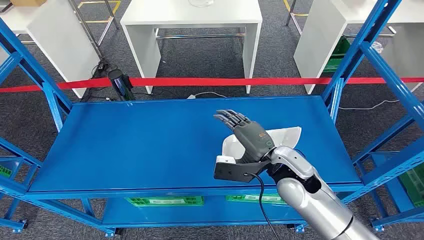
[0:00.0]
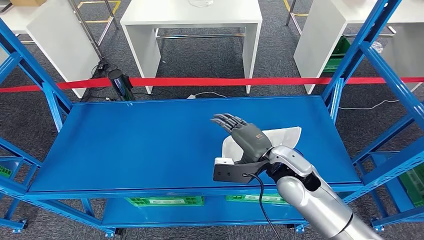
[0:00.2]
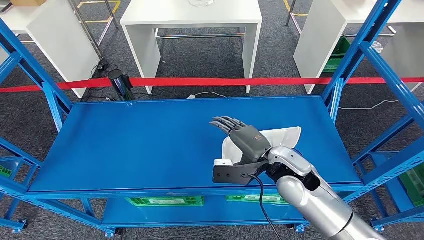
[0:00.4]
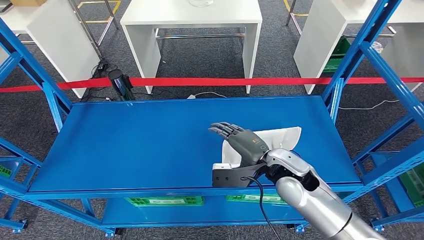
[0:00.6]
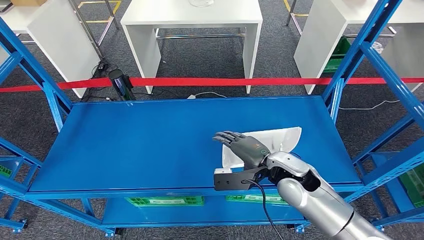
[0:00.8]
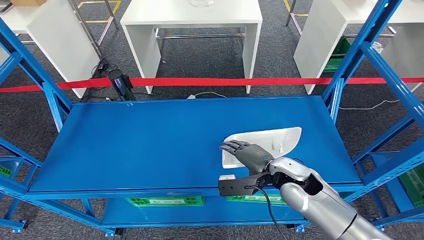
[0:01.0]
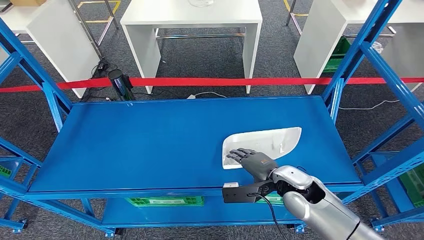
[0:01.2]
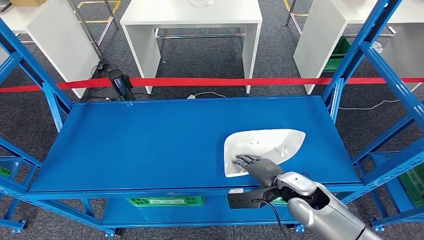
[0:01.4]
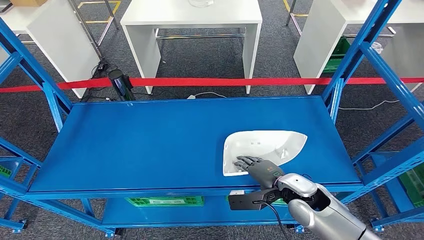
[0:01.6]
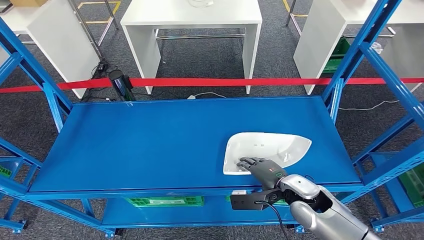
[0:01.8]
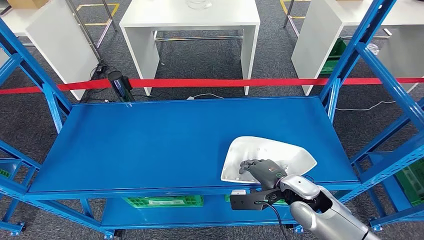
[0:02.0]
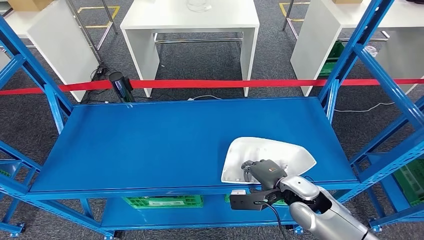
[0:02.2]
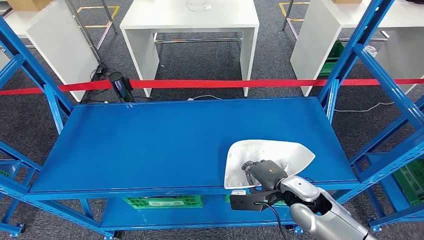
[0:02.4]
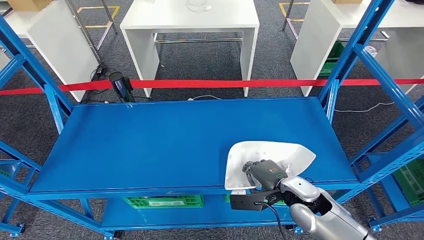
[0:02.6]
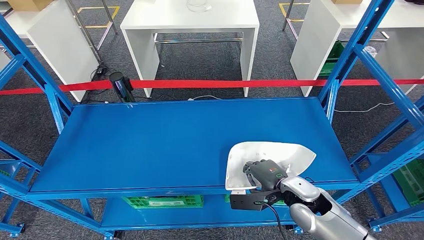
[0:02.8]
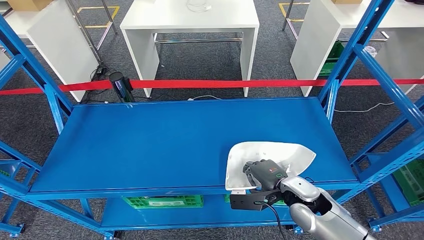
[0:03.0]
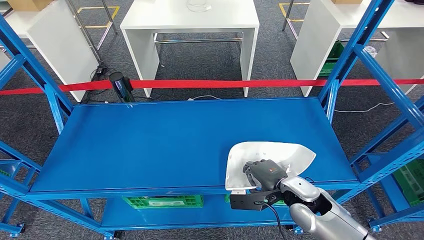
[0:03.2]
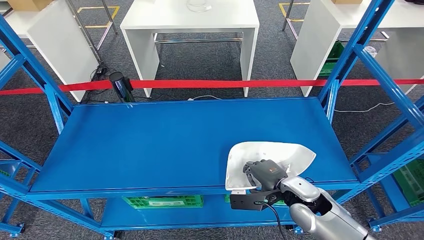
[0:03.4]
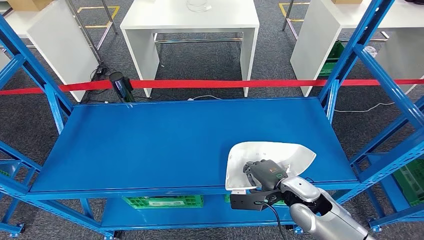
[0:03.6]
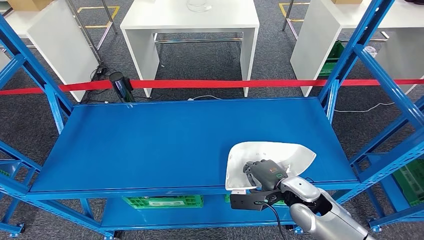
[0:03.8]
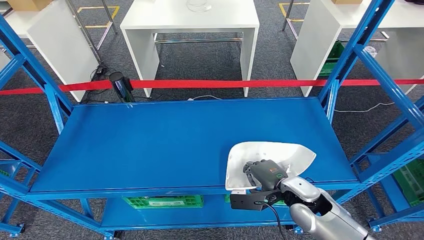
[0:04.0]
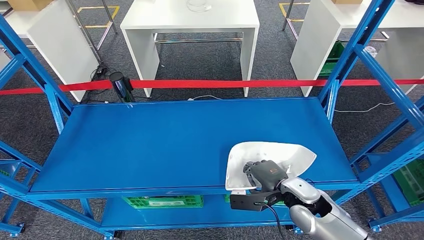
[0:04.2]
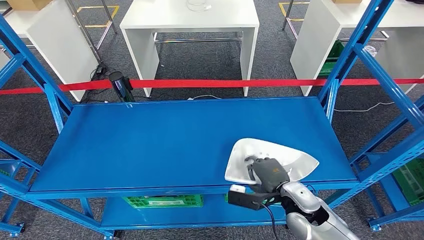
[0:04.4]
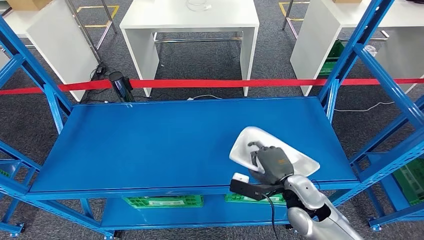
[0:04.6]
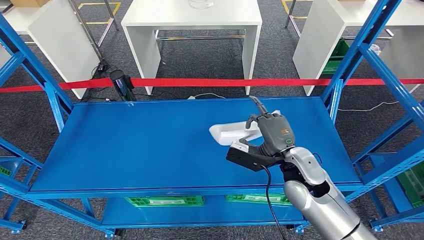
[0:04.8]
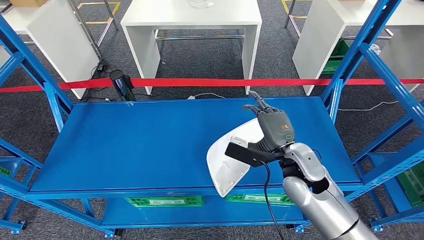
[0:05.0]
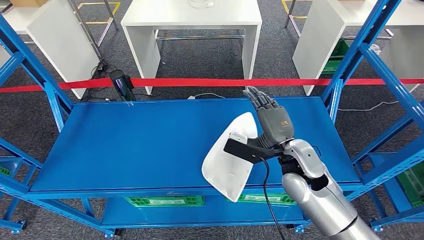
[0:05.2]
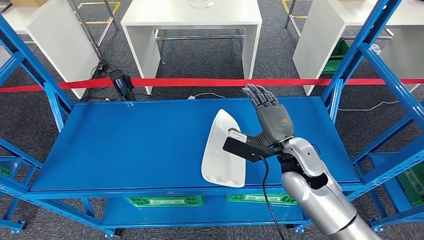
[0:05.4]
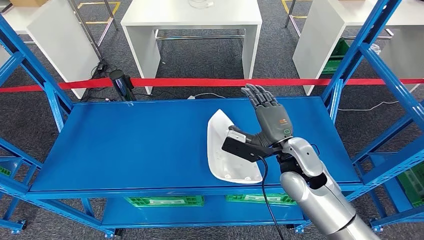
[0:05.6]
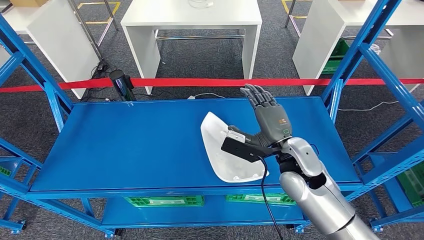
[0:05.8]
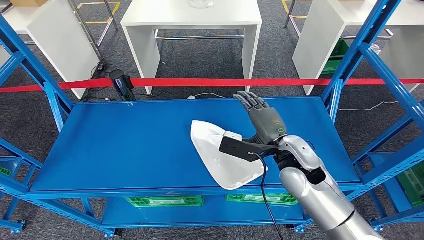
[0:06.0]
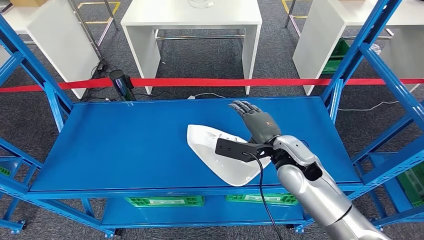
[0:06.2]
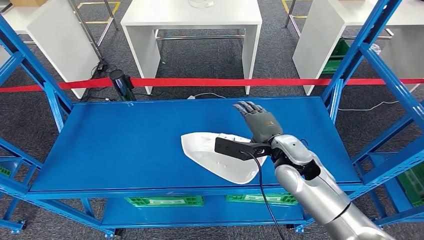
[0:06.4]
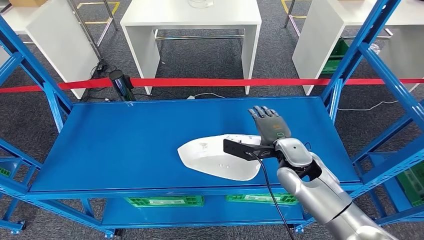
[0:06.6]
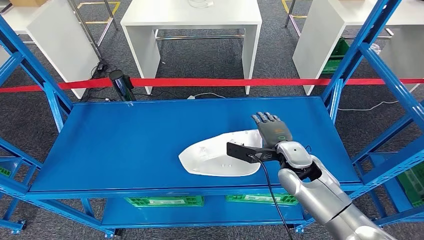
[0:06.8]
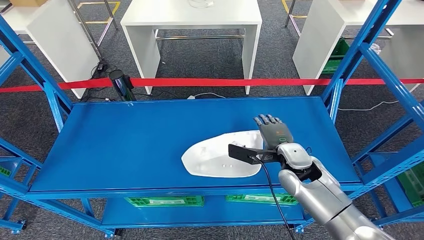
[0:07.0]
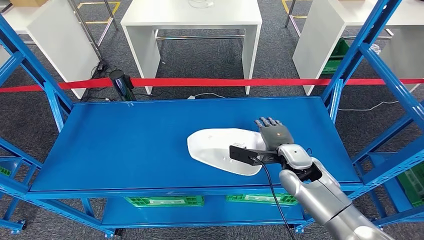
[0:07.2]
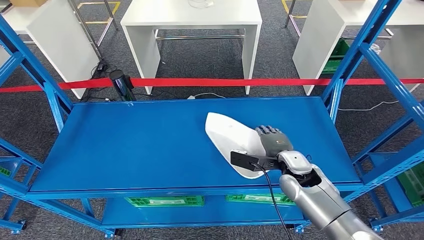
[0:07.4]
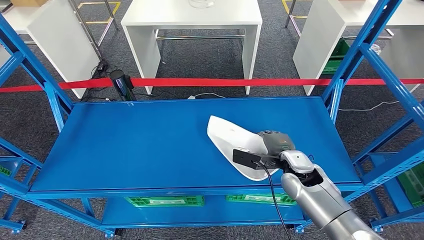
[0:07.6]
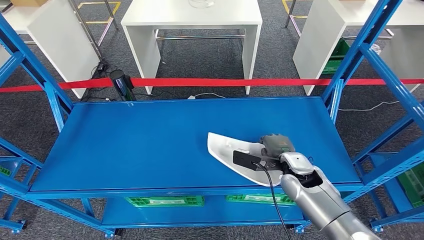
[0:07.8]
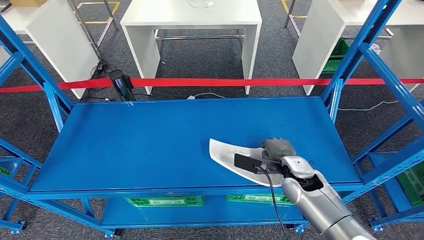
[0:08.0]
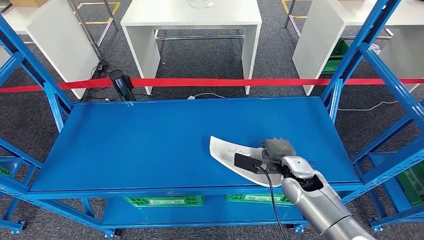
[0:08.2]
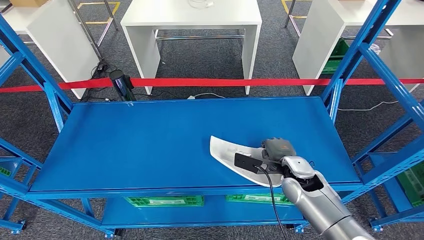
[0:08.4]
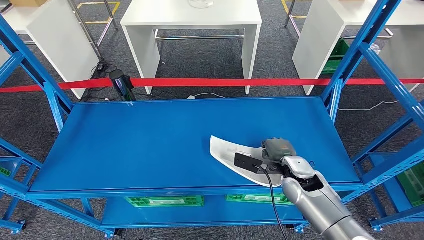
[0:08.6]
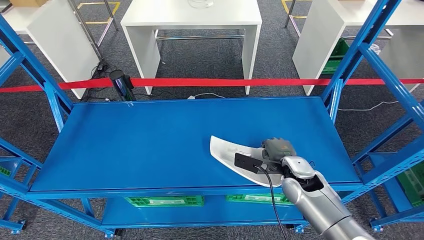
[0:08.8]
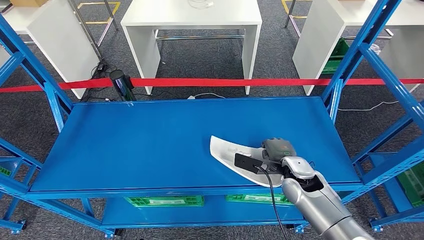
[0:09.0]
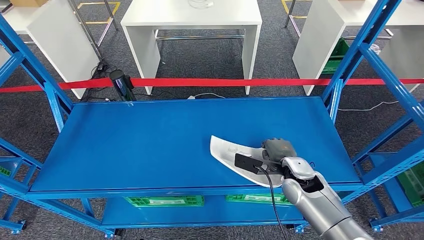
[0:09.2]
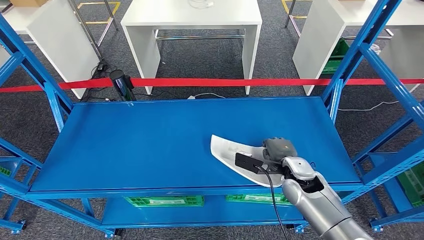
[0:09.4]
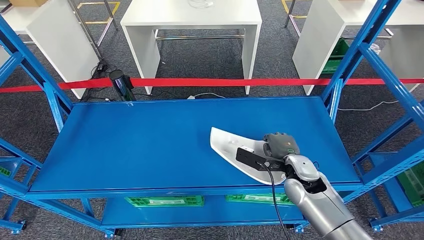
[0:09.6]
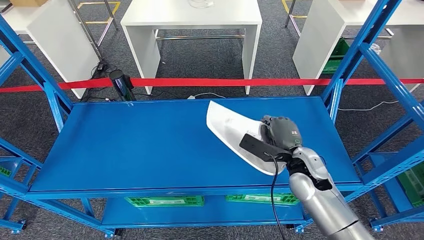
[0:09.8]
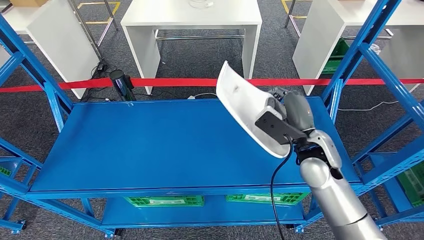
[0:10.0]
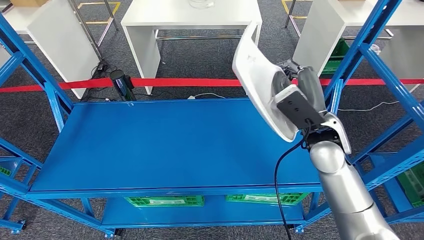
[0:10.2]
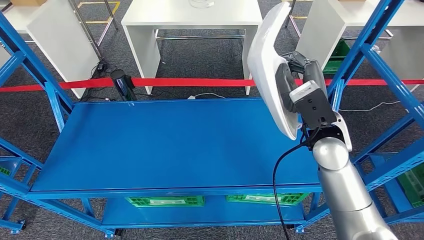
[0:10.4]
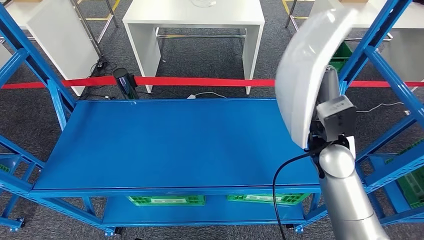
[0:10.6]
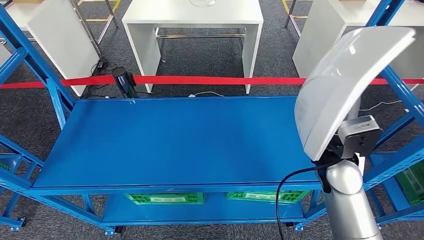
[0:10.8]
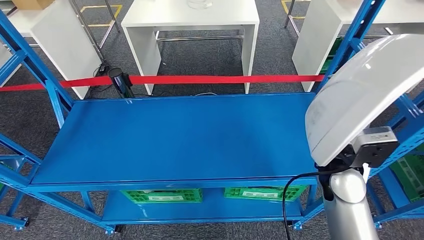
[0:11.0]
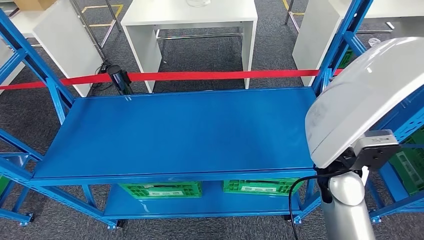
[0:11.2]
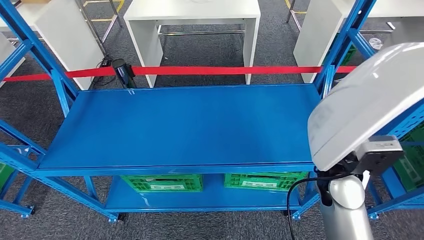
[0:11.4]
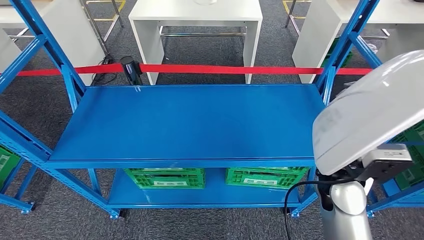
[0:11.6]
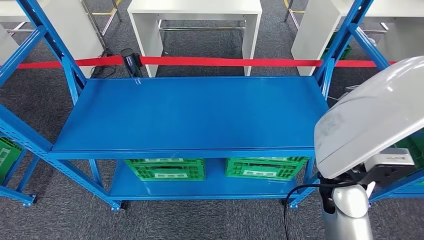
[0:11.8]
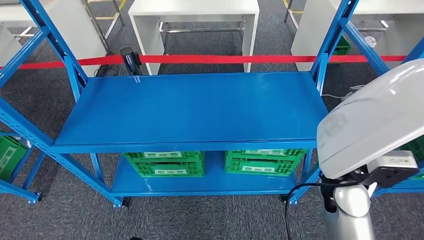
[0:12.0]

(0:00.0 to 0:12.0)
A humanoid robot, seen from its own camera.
Step, 0:00.0 - 0:11.6: Pick up the small parts from the shelf.
0:03.0 - 0:04.4: There are only small adjustments of the hands.
0:06.0 - 0:07.6: The right hand travels downward by about 10 cm.
0:07.6 - 0:09.0: There are only small adjustments of the hands.
0:09.0 - 0:10.4: The right hand moves upward, roughly 15 cm.

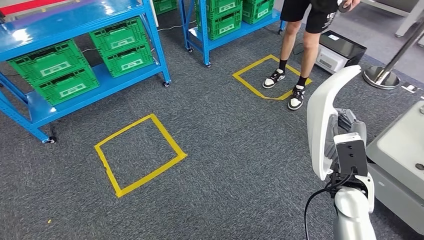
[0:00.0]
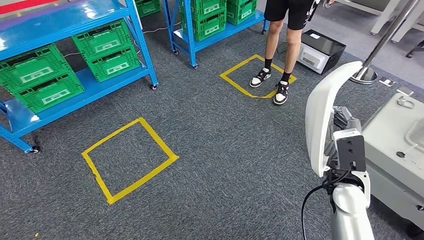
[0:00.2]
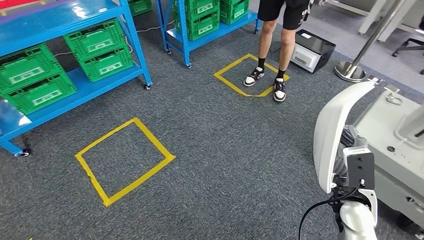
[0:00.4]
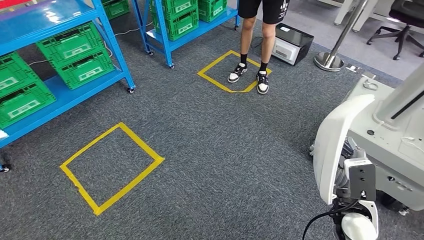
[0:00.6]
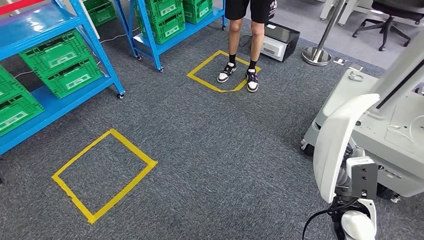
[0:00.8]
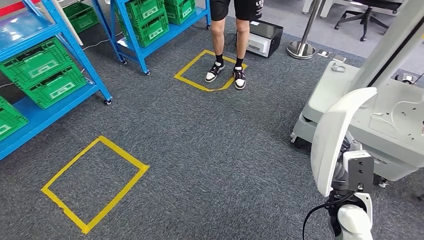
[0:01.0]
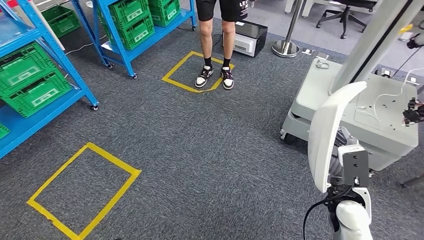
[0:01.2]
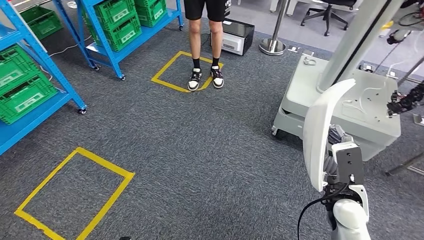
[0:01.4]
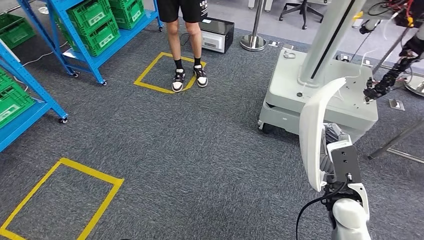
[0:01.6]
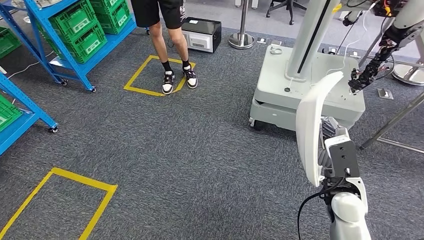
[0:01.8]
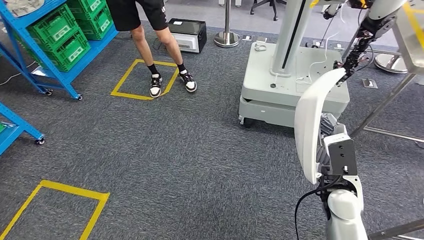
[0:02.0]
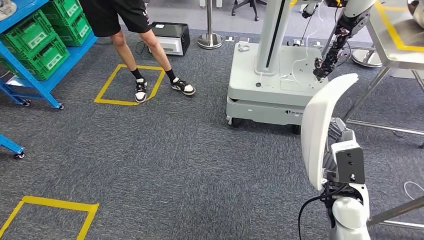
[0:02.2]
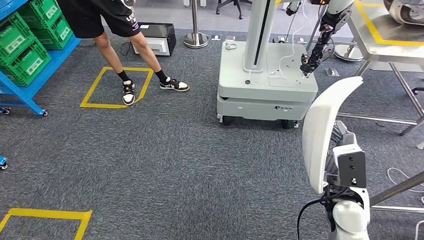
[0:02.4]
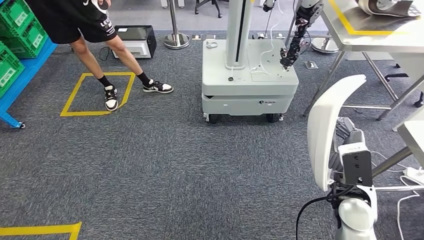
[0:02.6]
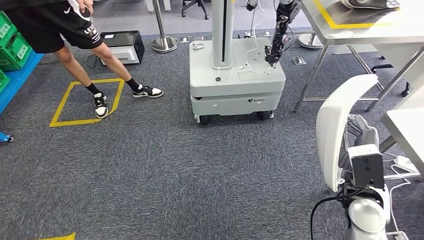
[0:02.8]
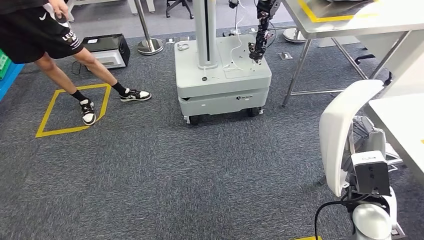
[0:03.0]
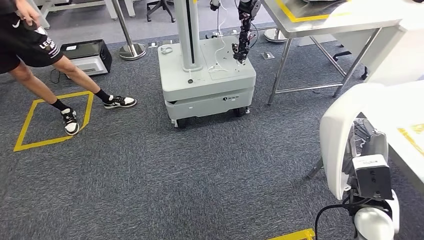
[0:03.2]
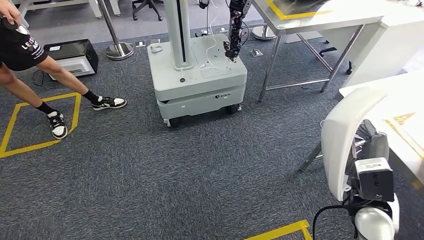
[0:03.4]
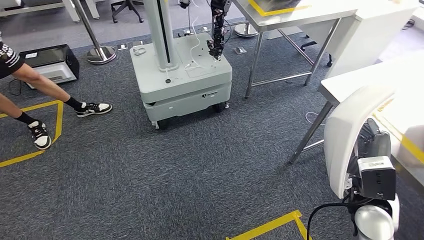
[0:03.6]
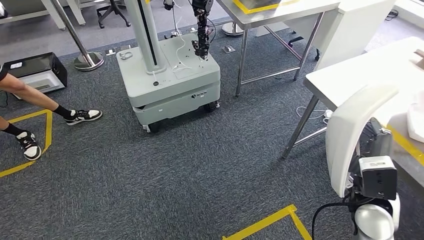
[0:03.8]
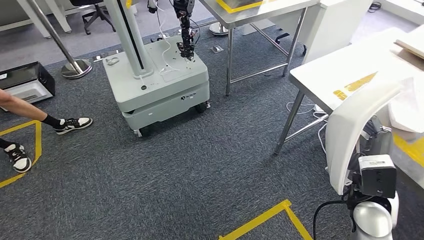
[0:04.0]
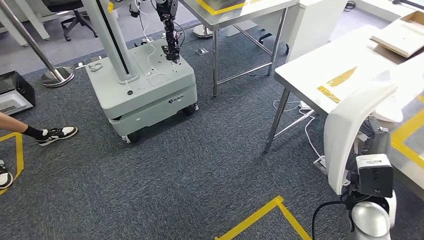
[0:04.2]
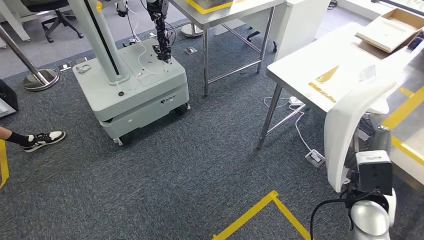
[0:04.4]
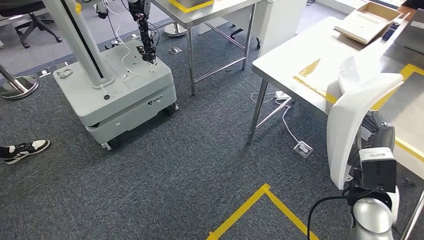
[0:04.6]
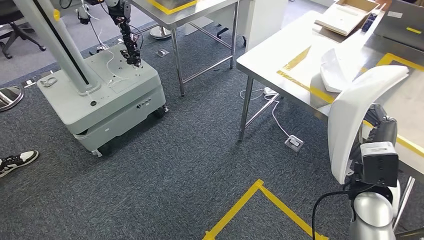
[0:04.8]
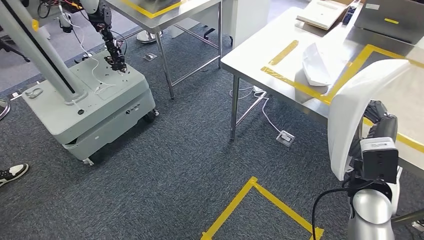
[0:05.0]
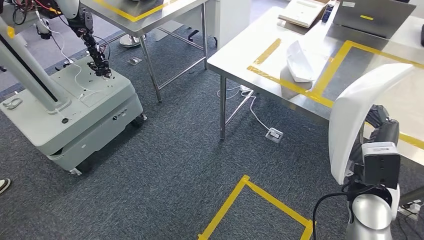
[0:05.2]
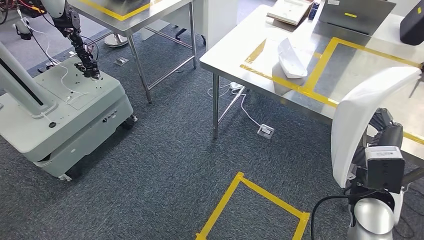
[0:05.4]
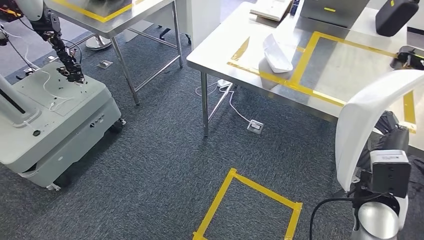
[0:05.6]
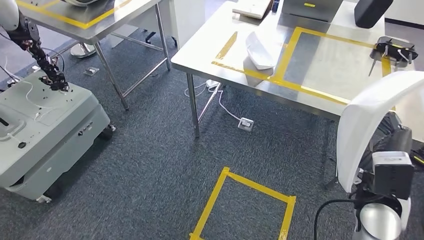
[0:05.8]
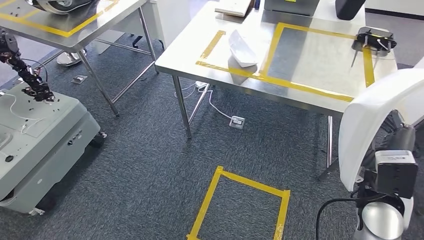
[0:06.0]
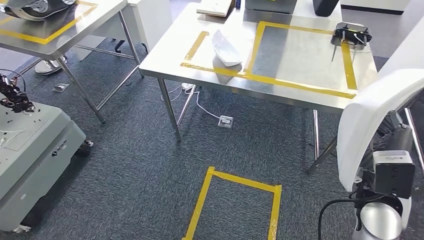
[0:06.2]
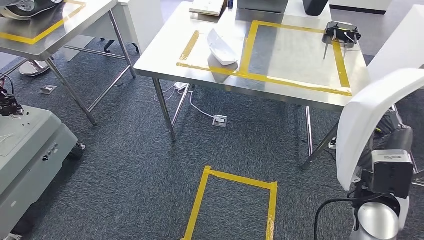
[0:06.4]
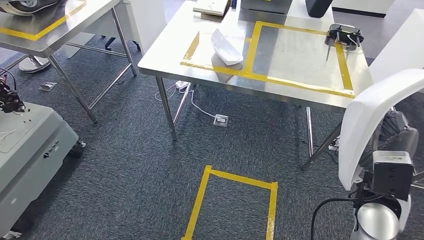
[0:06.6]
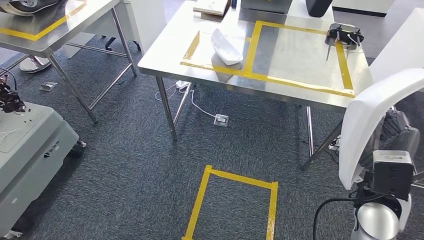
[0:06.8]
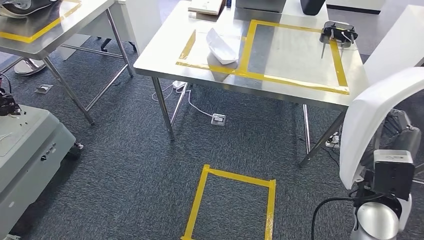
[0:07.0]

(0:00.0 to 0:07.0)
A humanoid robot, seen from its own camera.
Step, 0:00.0 - 0:04.8: Move the small parts to the workbench.
